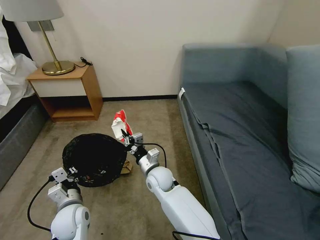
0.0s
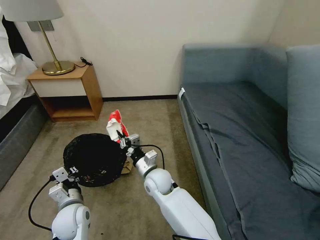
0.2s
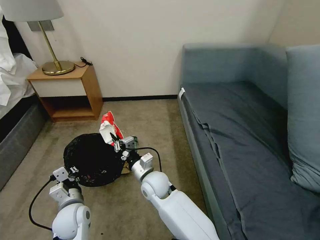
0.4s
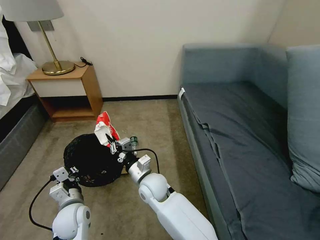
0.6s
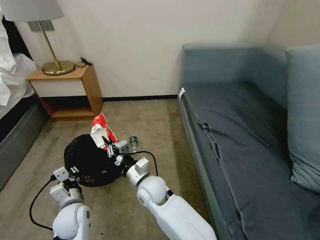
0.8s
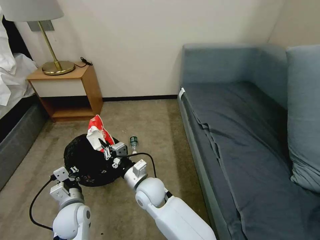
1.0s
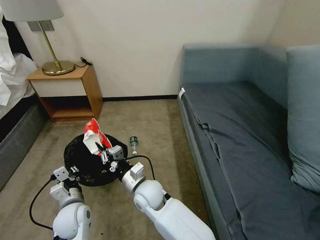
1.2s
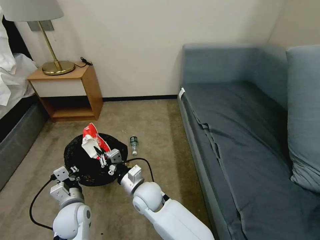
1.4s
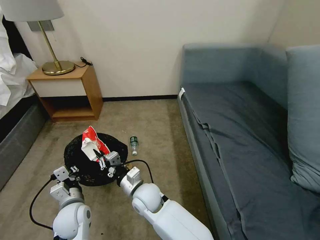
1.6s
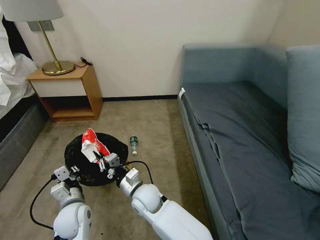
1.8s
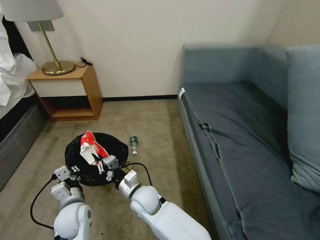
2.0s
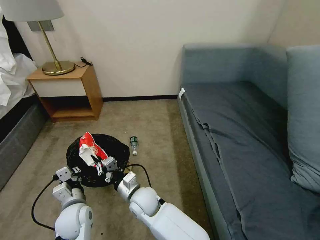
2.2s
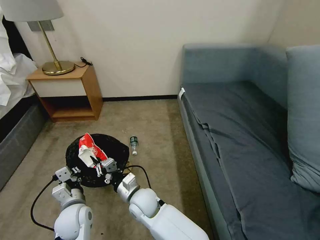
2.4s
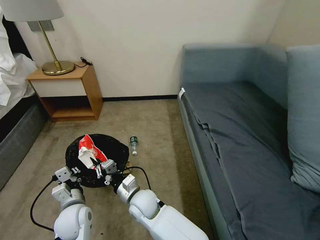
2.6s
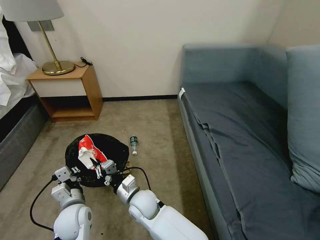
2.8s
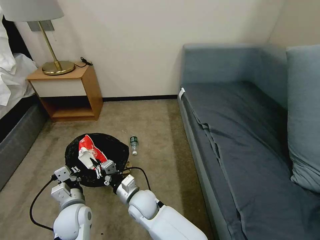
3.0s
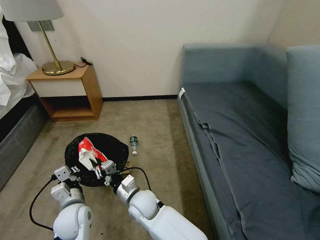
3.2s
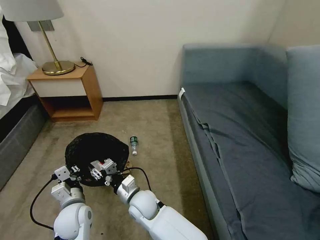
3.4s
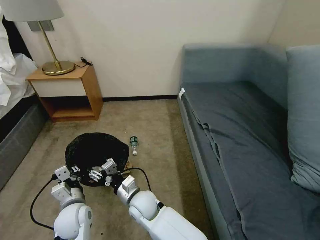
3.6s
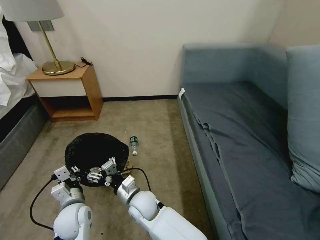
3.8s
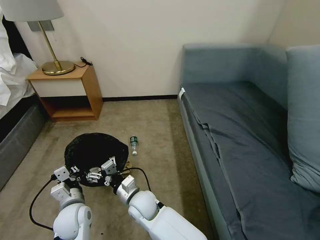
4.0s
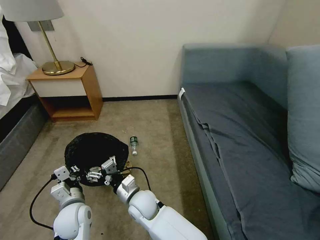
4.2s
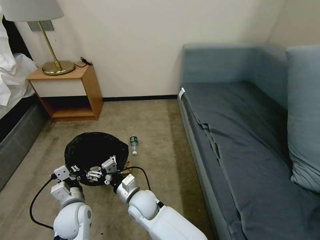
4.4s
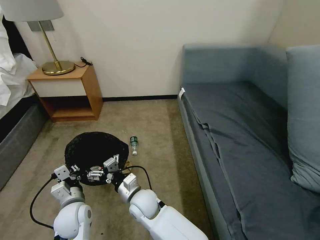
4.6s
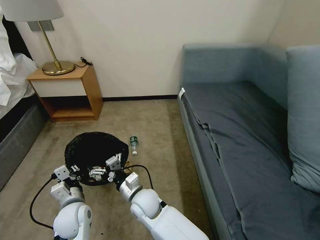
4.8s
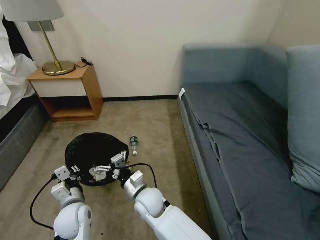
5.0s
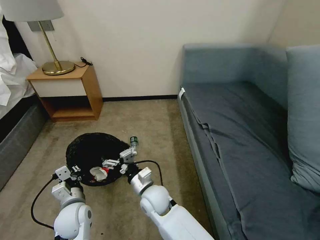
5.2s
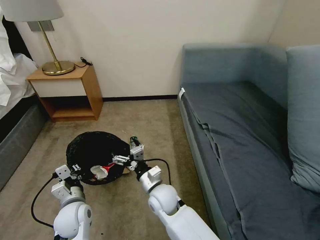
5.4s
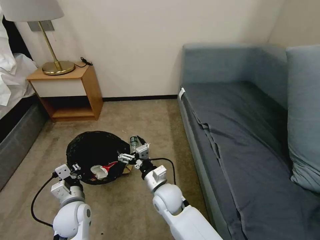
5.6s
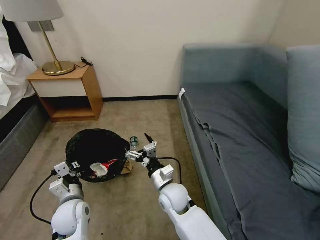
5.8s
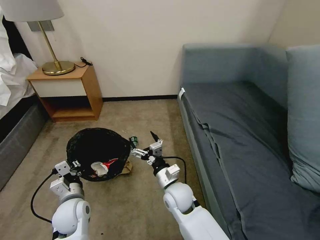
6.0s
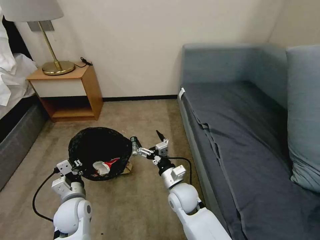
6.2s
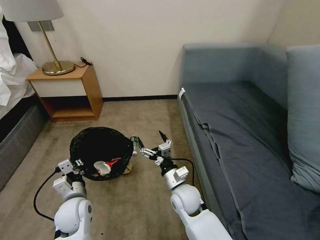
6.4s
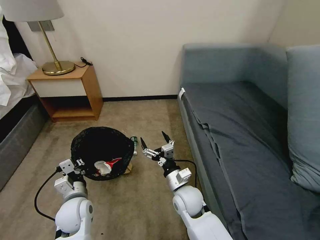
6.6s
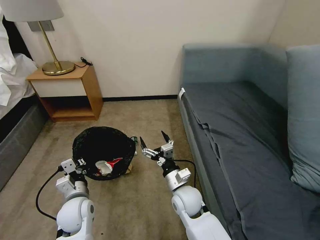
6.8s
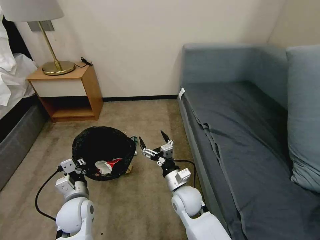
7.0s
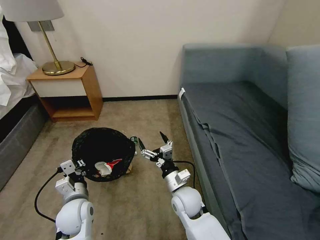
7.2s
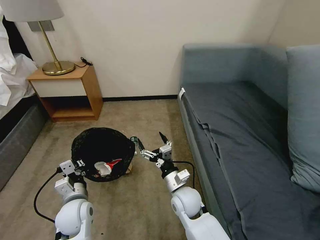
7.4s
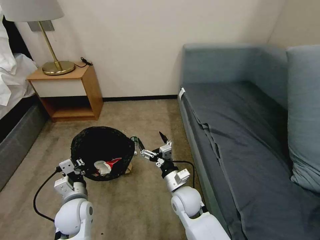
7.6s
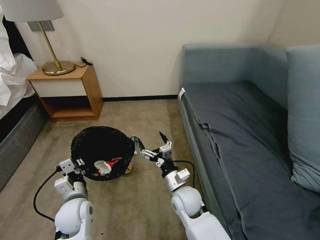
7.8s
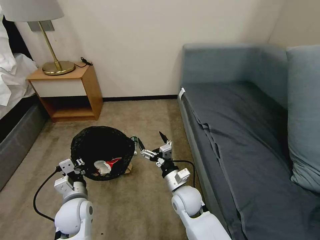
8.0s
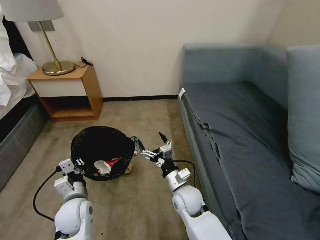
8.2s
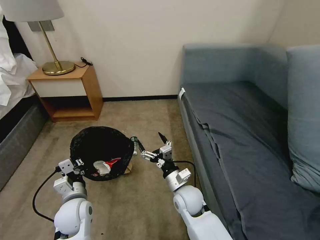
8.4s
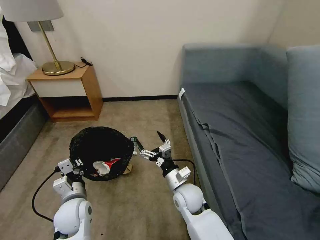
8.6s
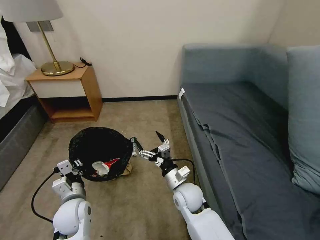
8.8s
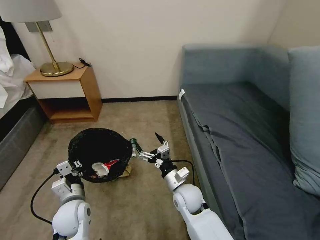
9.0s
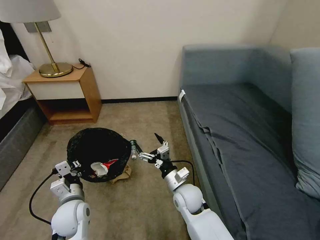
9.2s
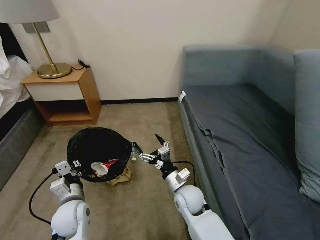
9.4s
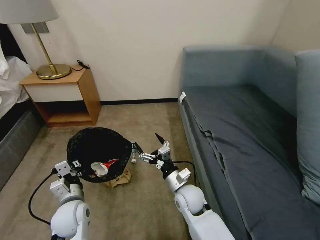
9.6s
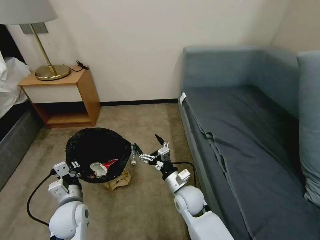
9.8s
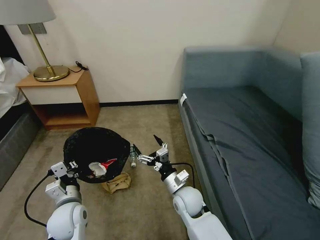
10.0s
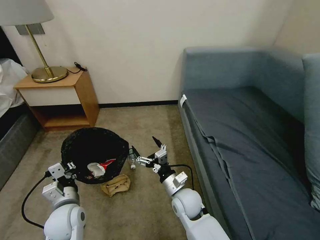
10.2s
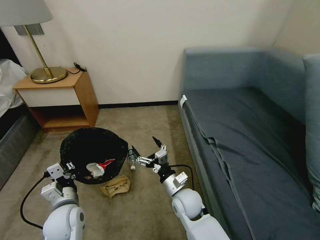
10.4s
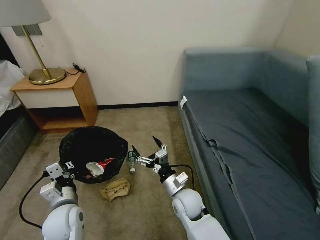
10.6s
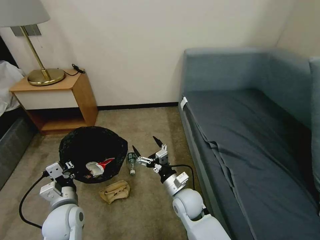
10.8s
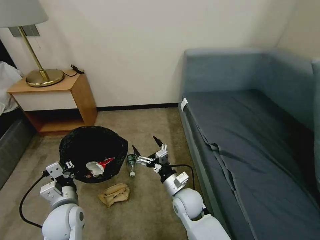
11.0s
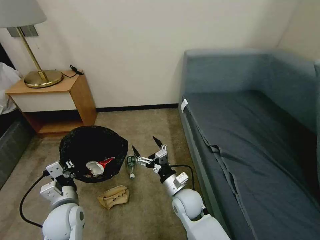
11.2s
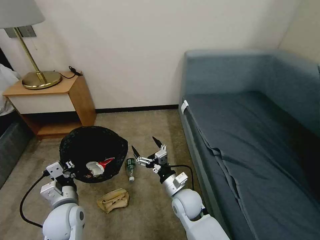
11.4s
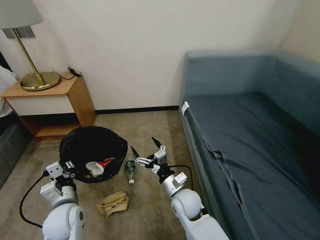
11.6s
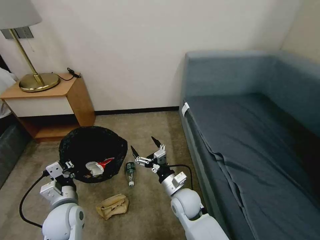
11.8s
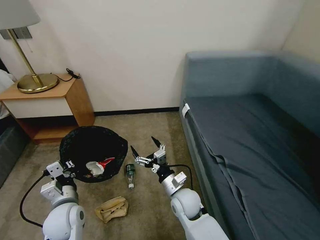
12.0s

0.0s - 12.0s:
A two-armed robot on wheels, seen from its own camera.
Task of the whole recording: Pick up the trash bin, then pick up the garbage on the floor and place it into the trash bin.
0.0s - 1.6s: The right gripper is displaced backward by about 5 cm.
1.6s - 3.0s: The grippers stay close to where they were, moving slightly.
4.4s - 6.0s: The right gripper heads to the right, covering approximately 10 cm.
6.0s - 9.0s: There are only small adjustments of the grippers.
10.4s - 12.0s: The two grippers keep their place.

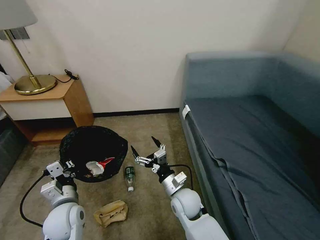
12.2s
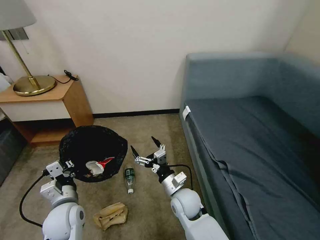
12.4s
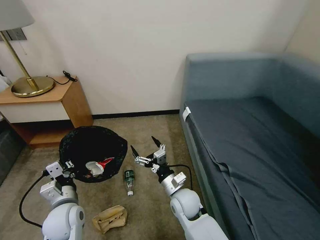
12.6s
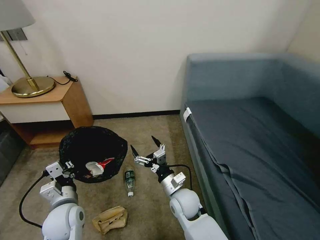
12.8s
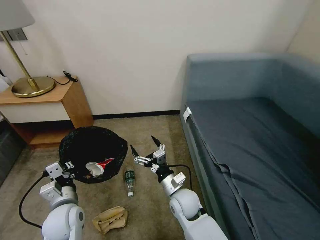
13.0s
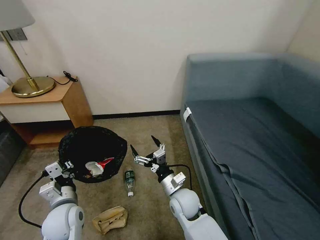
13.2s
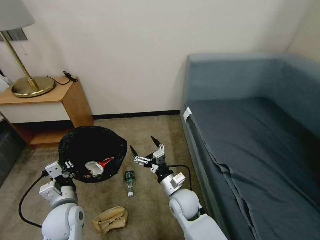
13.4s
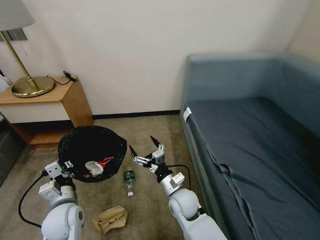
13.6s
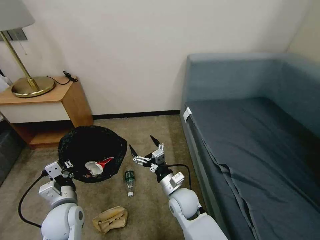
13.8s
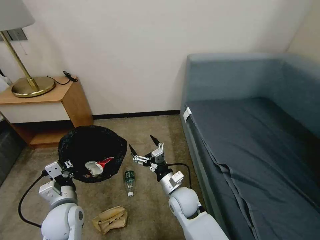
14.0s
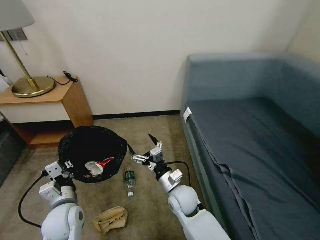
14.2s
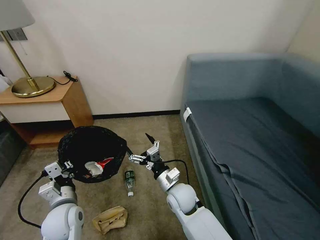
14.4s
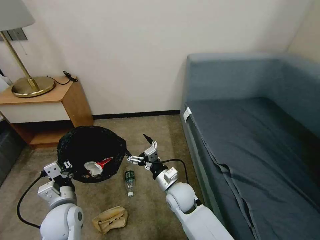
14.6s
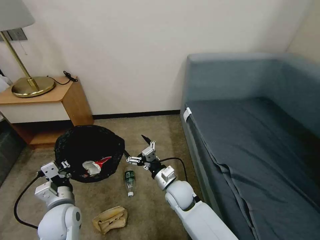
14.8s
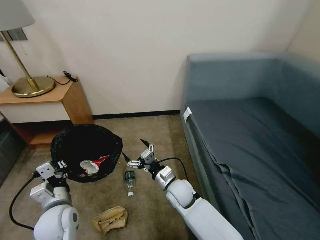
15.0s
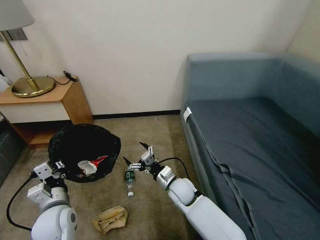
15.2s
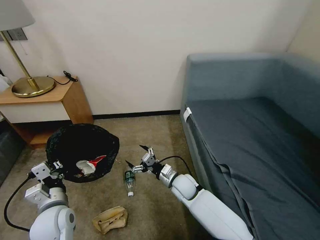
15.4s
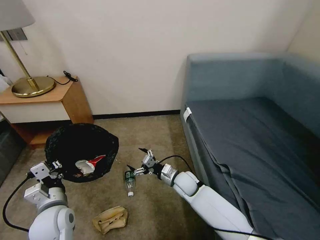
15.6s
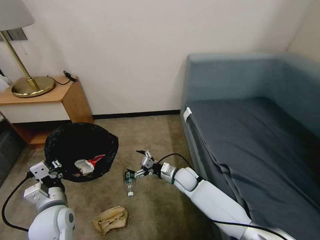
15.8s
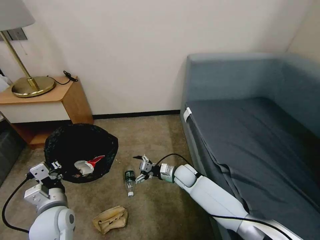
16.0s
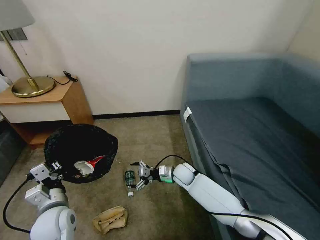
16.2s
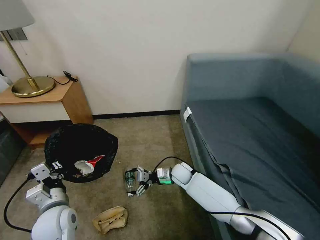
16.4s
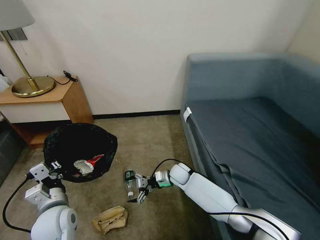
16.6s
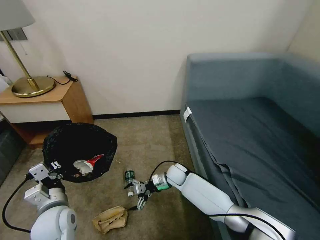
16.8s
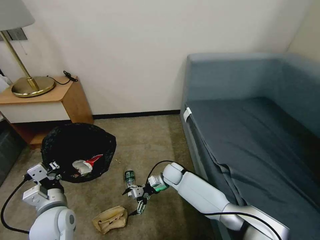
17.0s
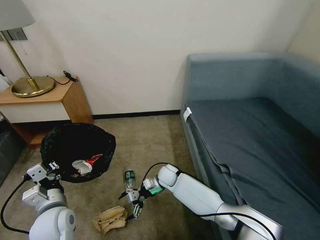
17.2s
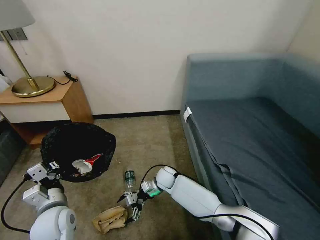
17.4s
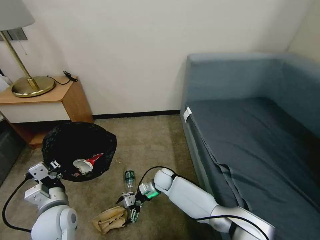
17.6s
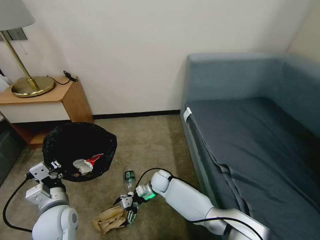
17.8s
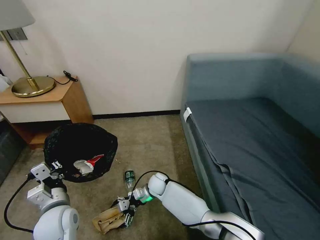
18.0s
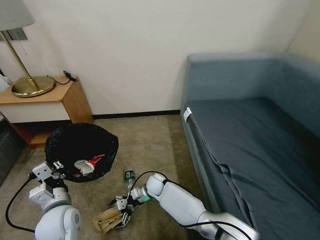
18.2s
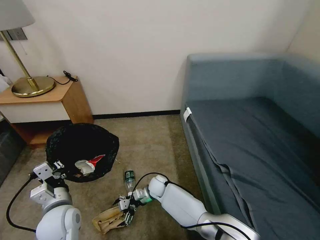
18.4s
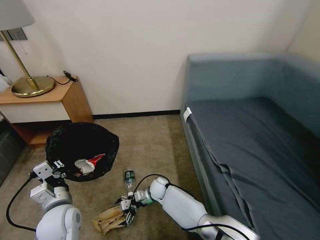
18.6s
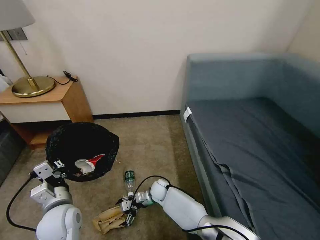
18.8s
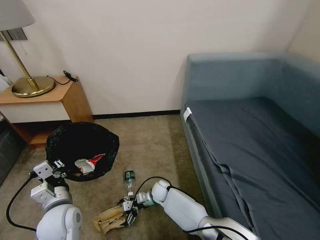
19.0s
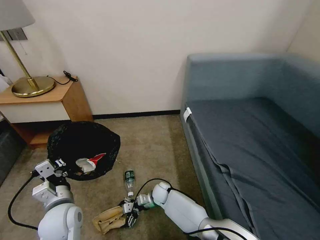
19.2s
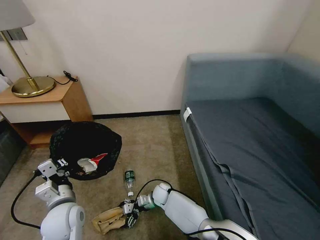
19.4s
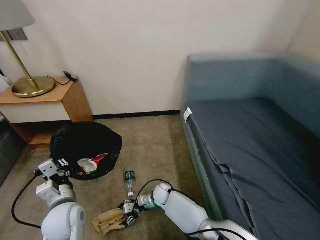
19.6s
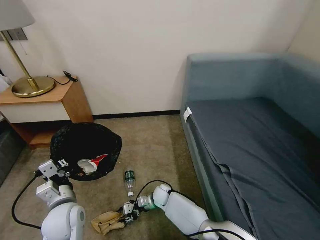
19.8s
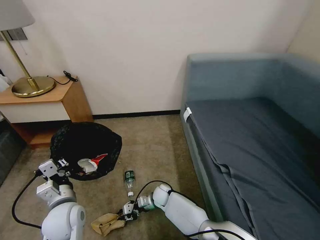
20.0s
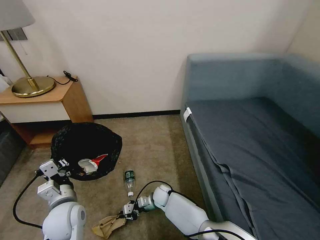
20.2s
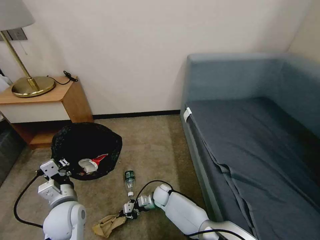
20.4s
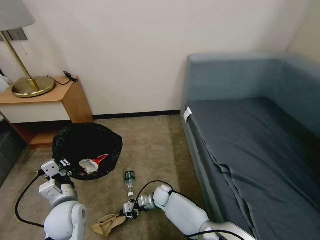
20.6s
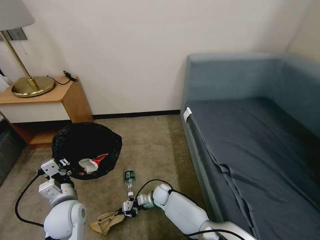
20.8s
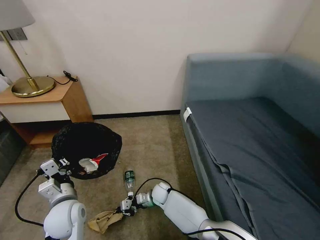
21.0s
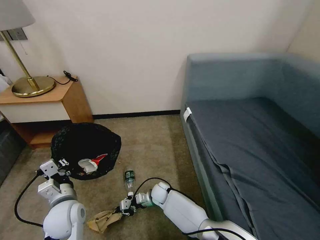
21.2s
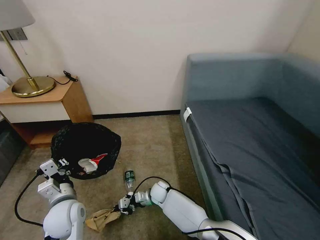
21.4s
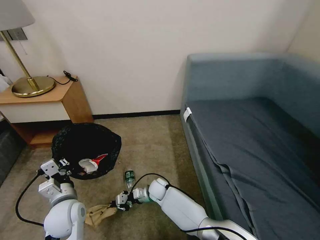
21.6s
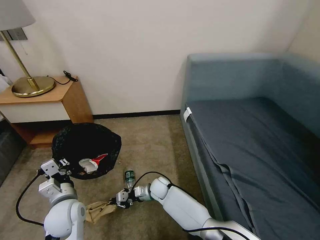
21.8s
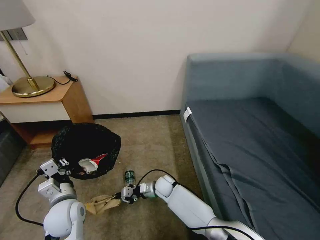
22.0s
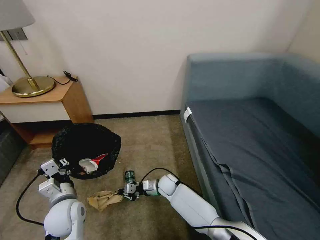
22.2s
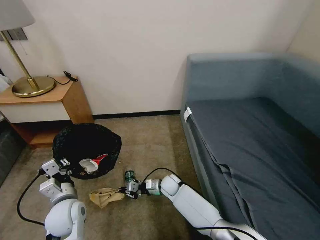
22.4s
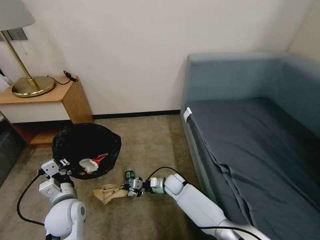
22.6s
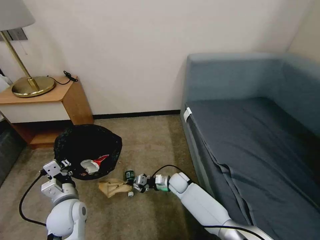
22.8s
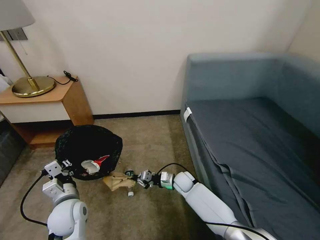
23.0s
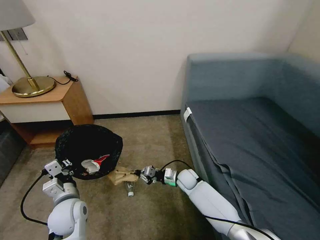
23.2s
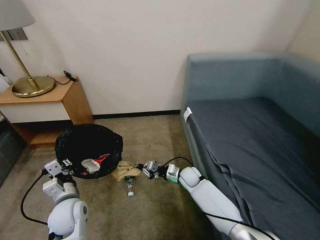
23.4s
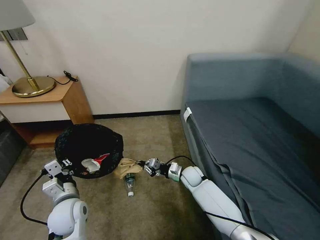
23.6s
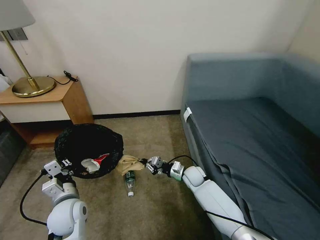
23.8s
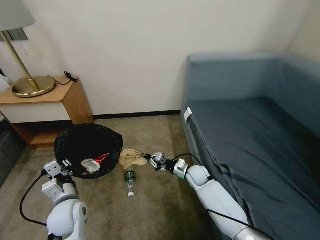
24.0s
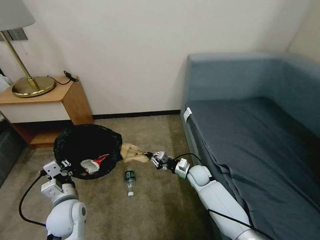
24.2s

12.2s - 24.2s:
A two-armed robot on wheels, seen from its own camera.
Task of the whole recording: Pick up the trash bin, then pick up the garbage on the floor and place it into the trash bin.
12.2s - 13.8s: The two grippers keep their place.
13.8s - 15.2s: The right gripper changes place by some 5 cm.
15.2s - 16.6s: The right gripper heads forward and downward, covering some 10 cm.
16.6s - 18.2s: The right gripper travels to the left by some 10 cm.
18.2s - 19.8s: The right gripper shifts roughly 5 cm downward, and closes up.
19.8s - 21.2s: The right gripper closes.
21.2s - 22.6s: The right gripper is displaced to the right by approximately 5 cm.
22.6s - 24.2s: The right gripper shifts about 10 cm to the right and upward.
